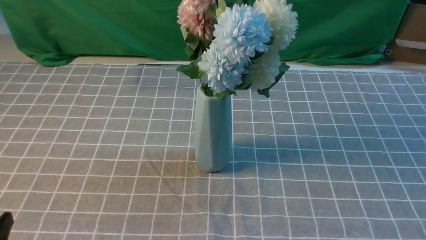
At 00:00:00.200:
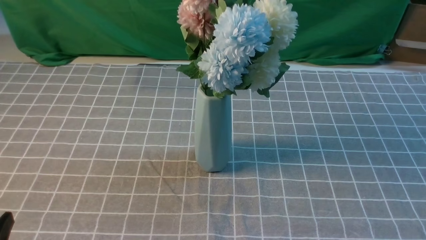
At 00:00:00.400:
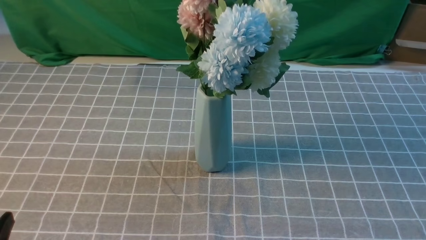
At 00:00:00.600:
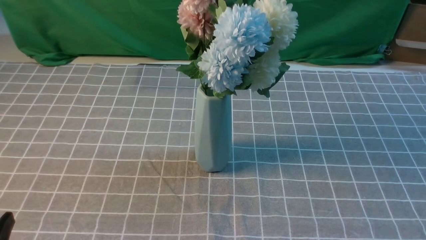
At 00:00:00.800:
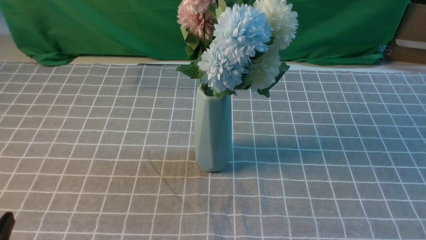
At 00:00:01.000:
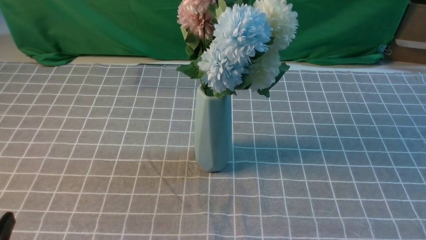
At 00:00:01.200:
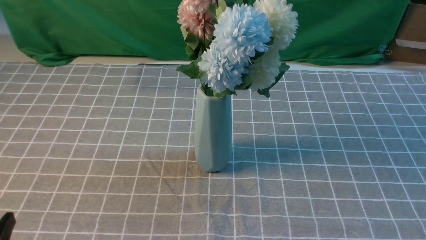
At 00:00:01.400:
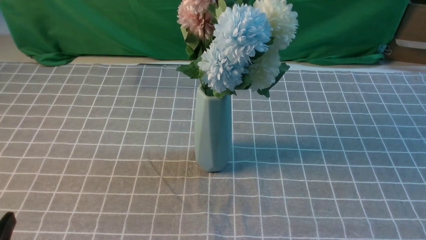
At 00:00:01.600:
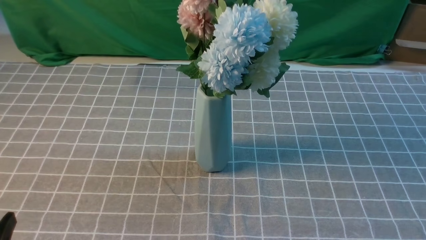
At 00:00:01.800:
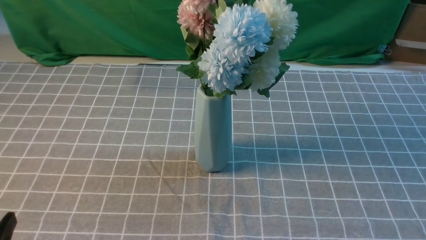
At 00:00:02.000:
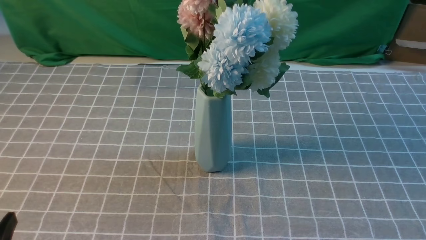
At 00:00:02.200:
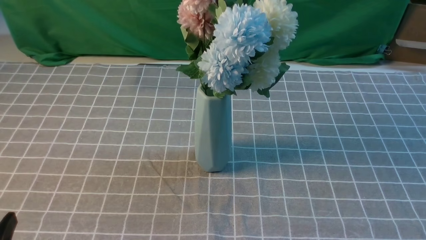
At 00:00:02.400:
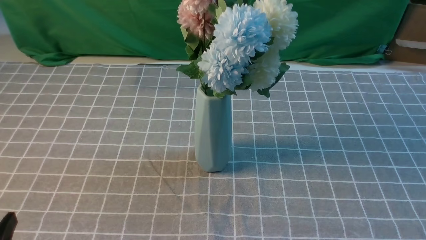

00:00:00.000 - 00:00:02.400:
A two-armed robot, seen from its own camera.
Task of the whole recording: insert the flowers into the vase on the table with the grey tablecloth.
00:00:01.200 - 00:00:02.400: The two grippers keep their place.
